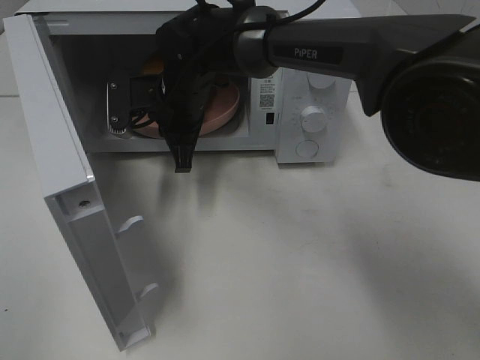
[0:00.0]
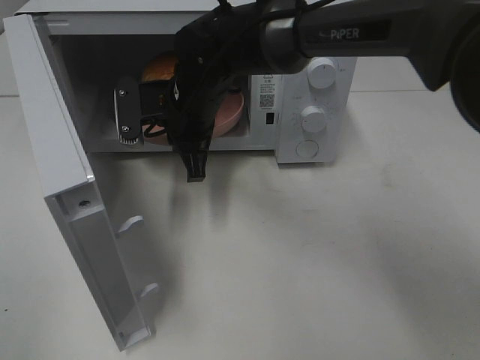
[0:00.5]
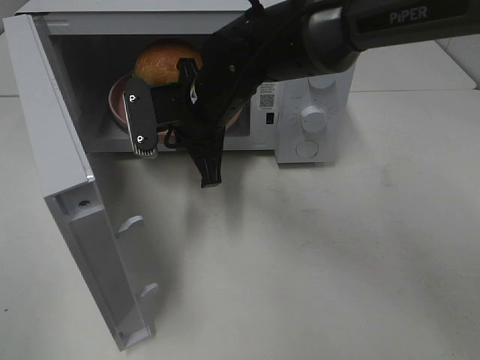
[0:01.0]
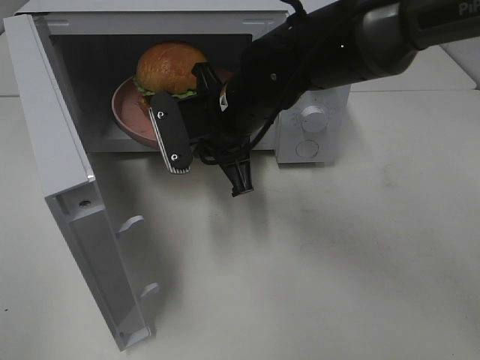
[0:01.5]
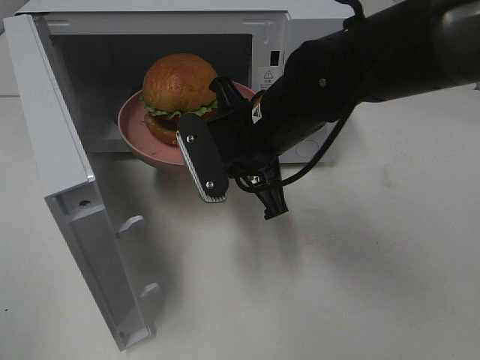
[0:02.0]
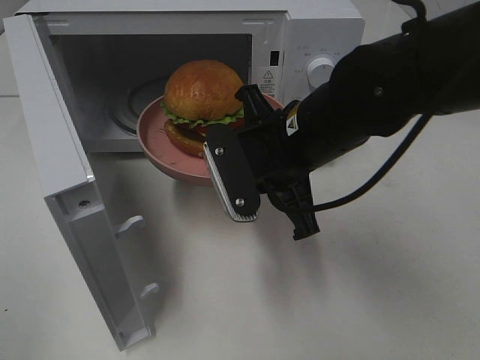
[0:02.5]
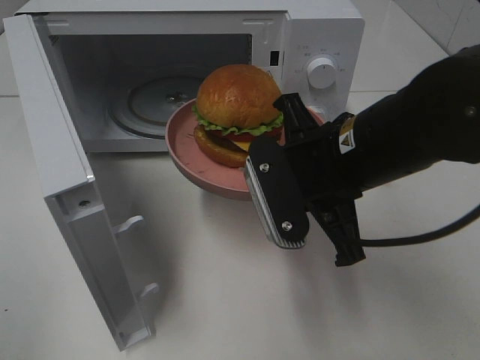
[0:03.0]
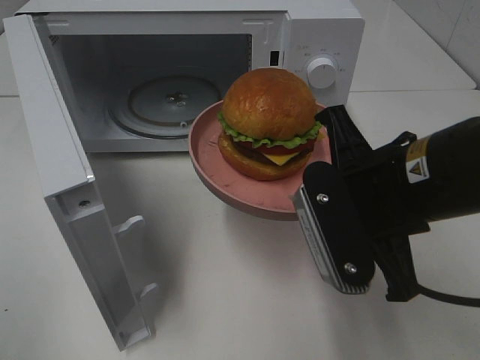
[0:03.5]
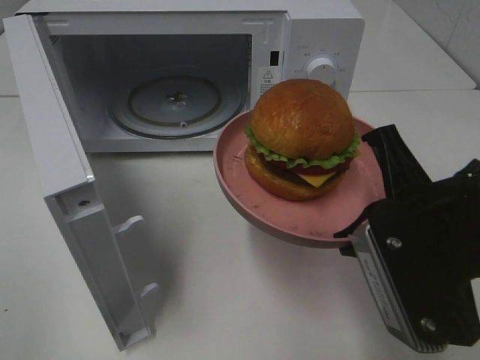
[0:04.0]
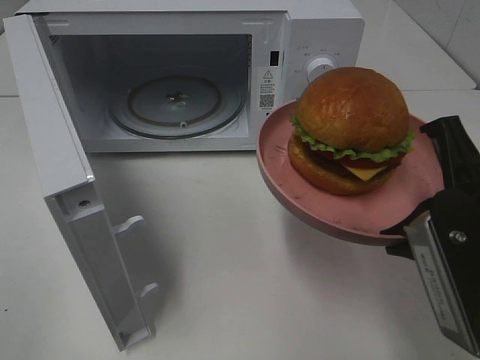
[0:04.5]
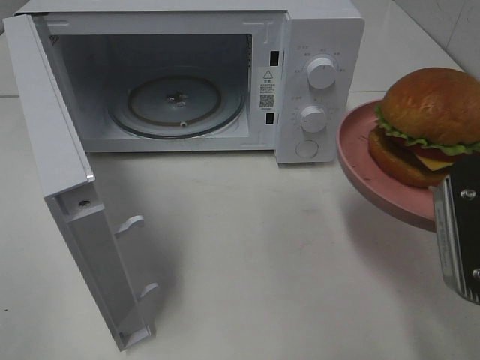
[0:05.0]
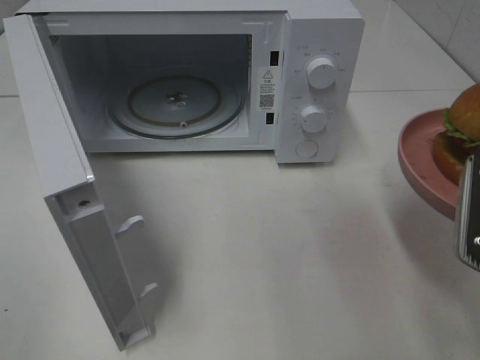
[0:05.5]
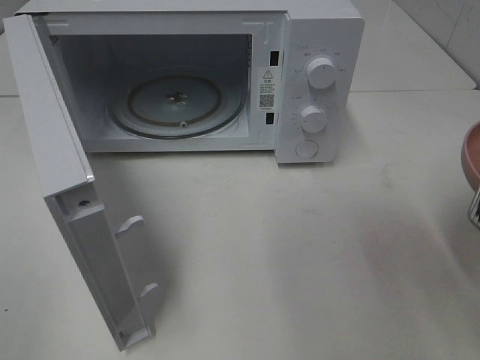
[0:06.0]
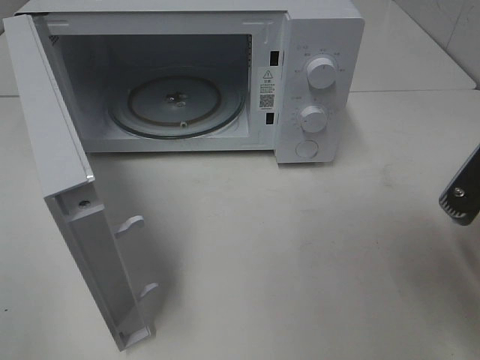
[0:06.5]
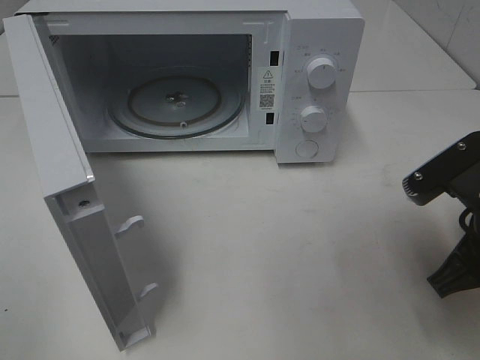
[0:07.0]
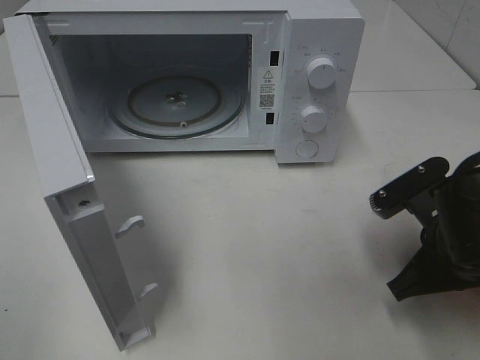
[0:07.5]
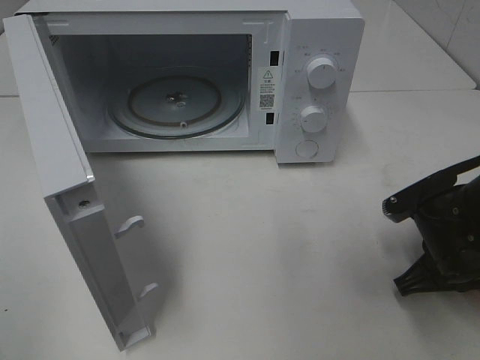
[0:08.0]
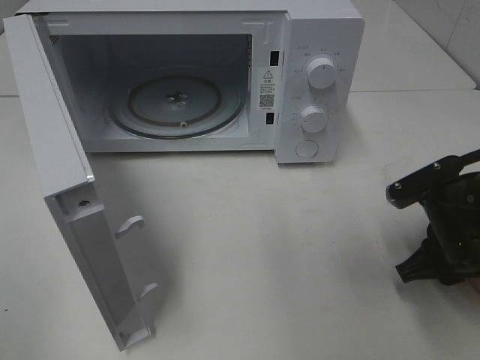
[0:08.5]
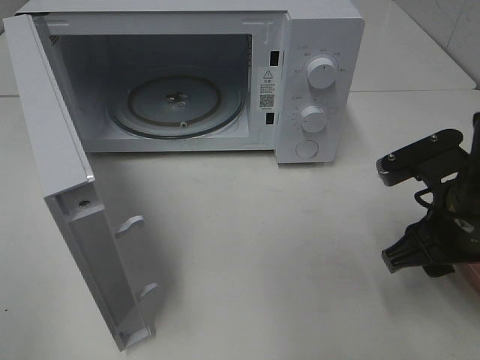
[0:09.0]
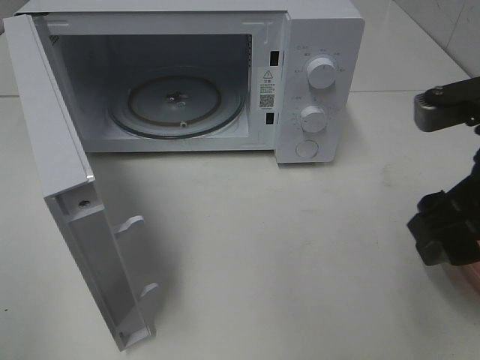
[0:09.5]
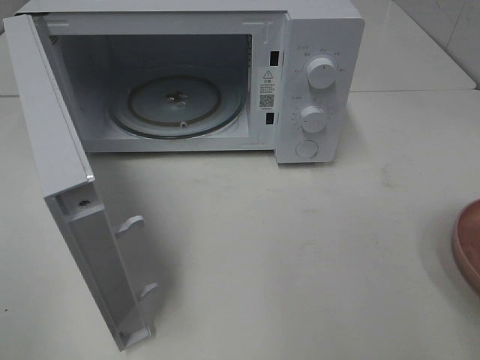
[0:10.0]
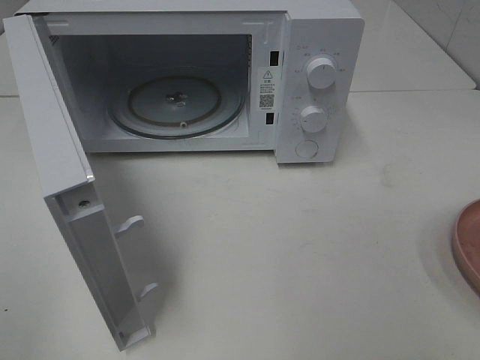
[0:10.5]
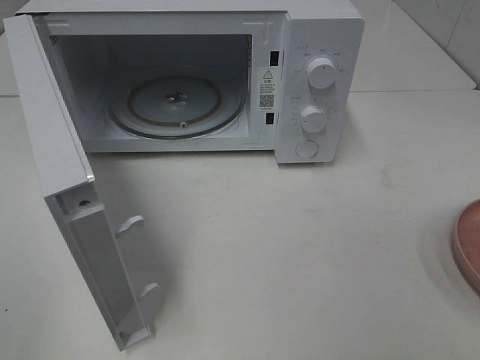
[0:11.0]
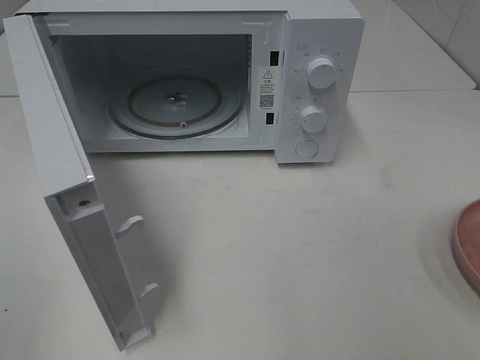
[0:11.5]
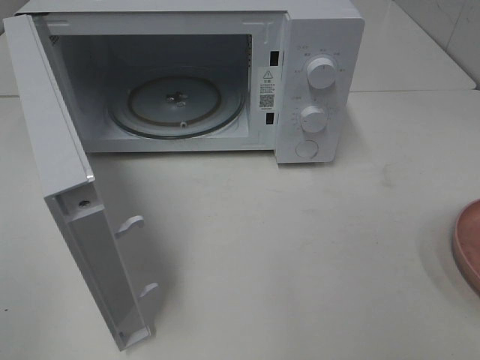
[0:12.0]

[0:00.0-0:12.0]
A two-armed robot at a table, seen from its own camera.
Task of the whole recording: Heat the burger.
Step, 0:00.0 to 0:08.5: Right hand: place the plate on the table.
0:00.0 to 0:02.0: The right gripper heads backward and to the right, covering about 15 cm.
0:02.0 to 0:04.0: The right gripper travels backward and to the right by roughly 20 cm.
0:04.0 to 0:06.0: The right gripper heads to the right, covering about 10 cm.
0:06.0 to 0:08.0: The right gripper heads downward and forward, covering approximately 15 cm.
0:08.0 to 0:10.0: The right gripper travels upward and backward by roughly 20 cm, and opens.

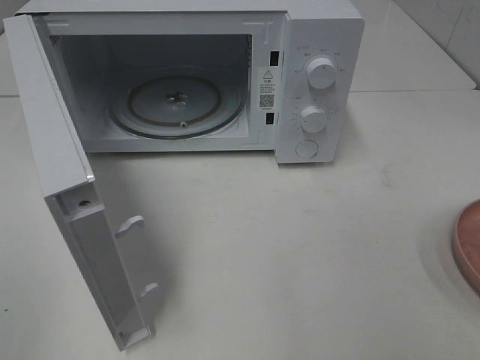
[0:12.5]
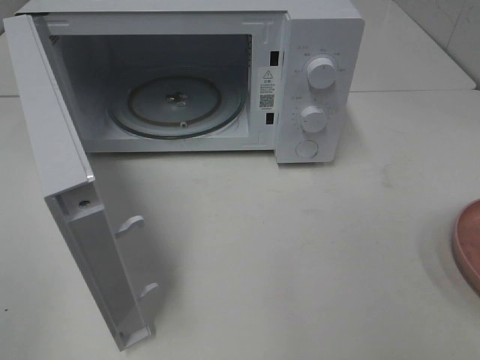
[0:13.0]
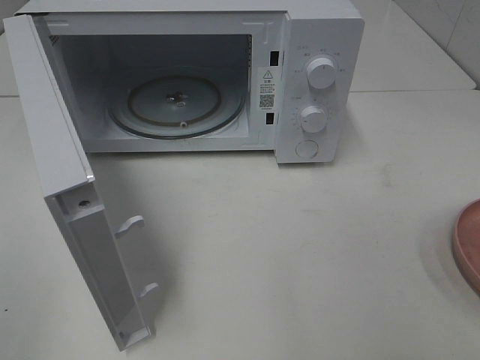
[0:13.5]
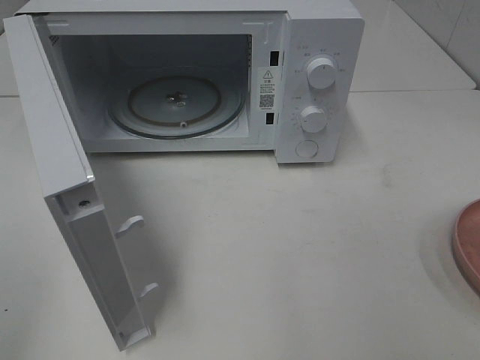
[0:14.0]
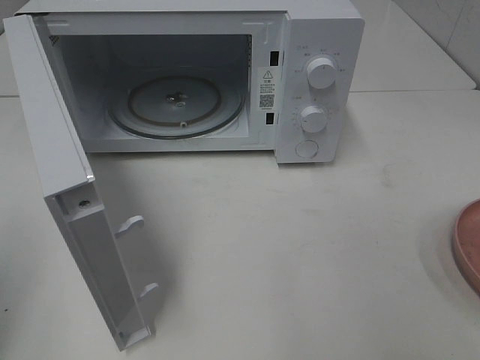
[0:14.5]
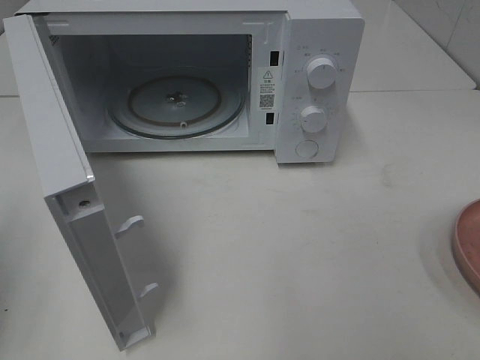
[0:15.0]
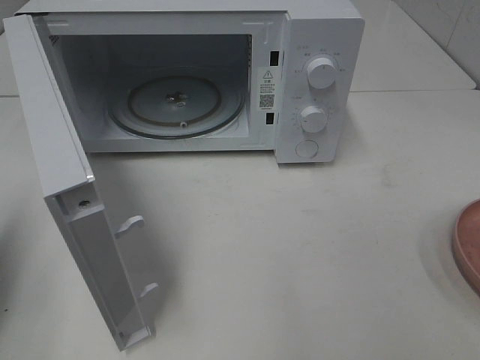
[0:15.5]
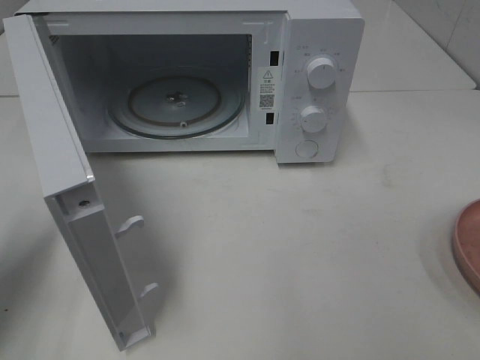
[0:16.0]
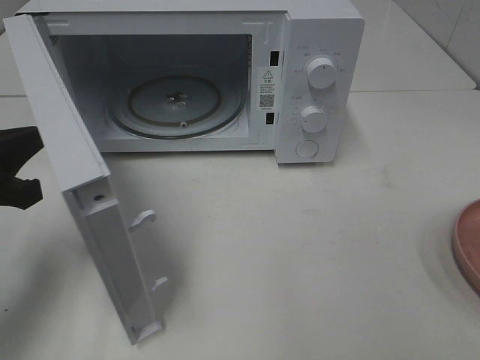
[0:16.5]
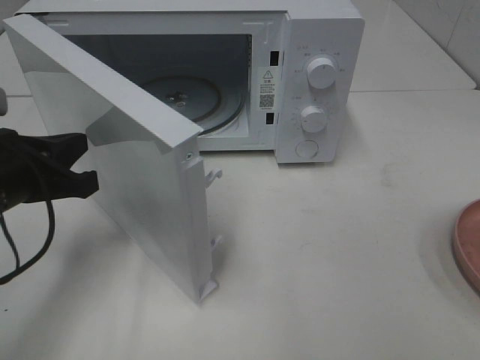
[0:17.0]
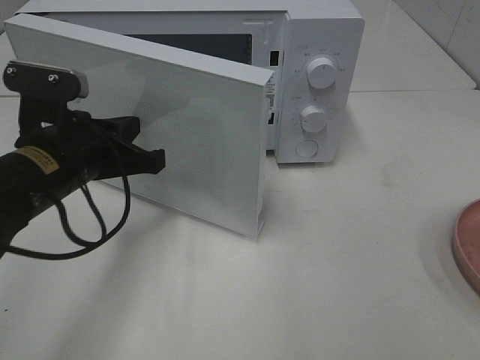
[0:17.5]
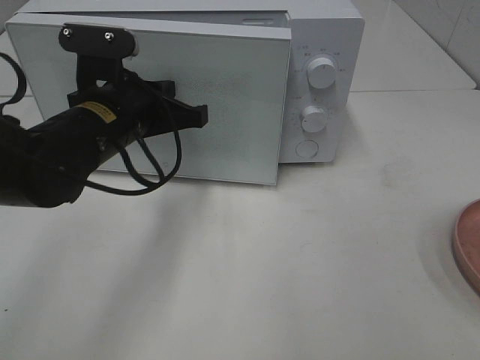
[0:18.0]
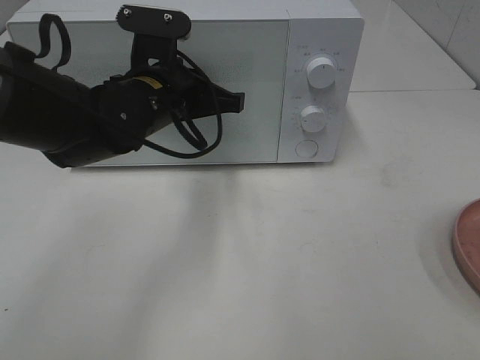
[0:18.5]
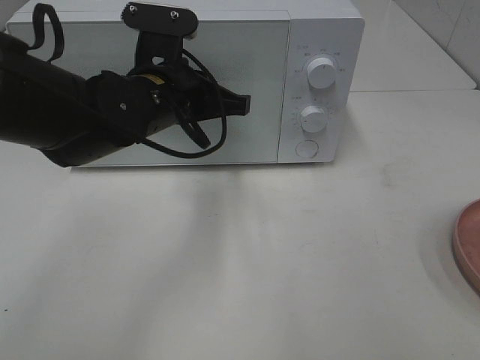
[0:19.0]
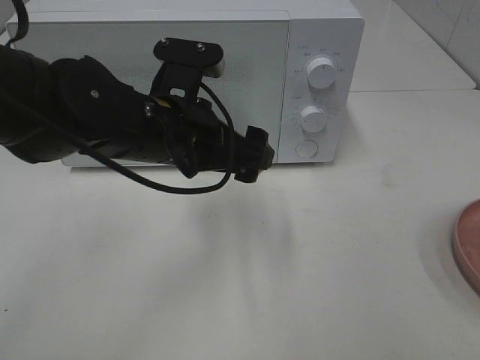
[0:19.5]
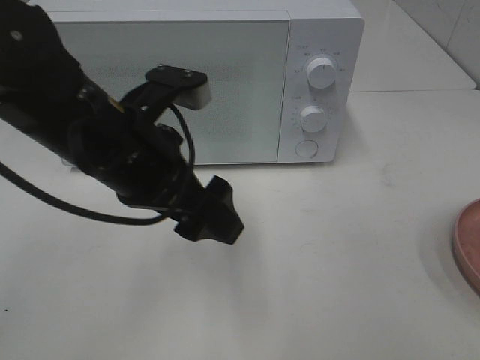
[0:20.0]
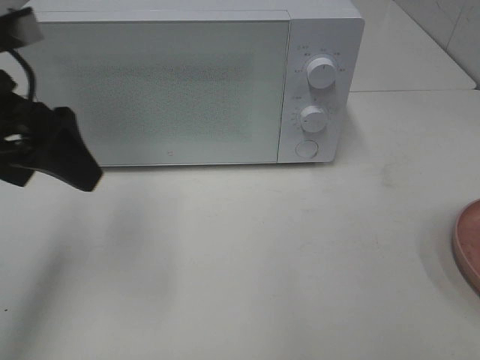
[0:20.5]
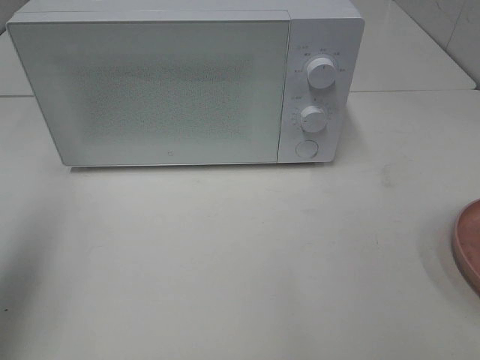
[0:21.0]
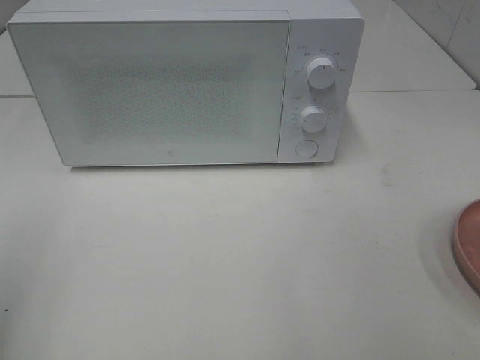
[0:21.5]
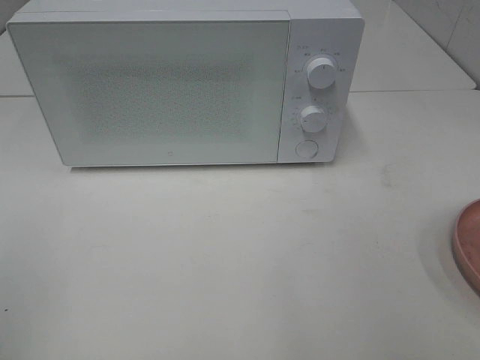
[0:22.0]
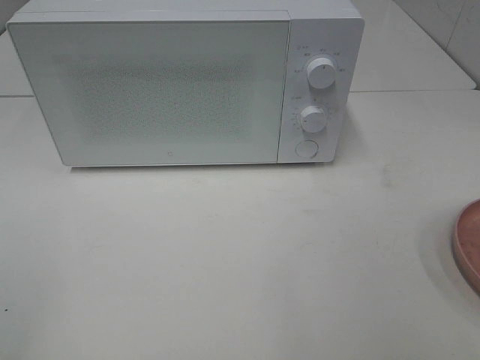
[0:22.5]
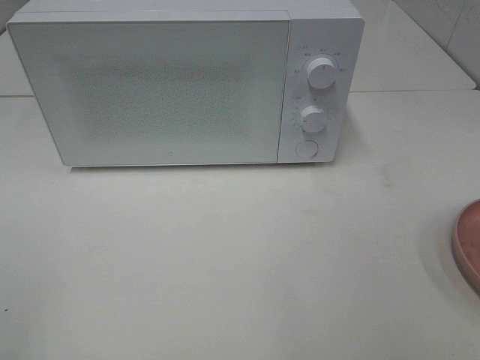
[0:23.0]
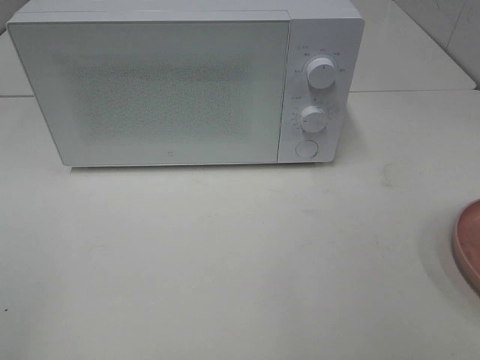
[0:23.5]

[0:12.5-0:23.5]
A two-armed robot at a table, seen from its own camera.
Task of the whole recording: Heat the burger.
Step, 0:12.5 to 0:19.0: Left hand: close the microwave door.
0:14.5 to 0:16.0: The left gripper travels forward and downward by roughly 15 cm.
0:16.0 to 0:18.0: The left gripper shifts approximately 20 cm to the right and forward.
0:18.0 to 0:20.0: The left gripper travels backward by about 5 cm, and opens its fingers.
0:20.0 to 0:21.5: The left gripper is displaced to the left and backward by approximately 25 cm.

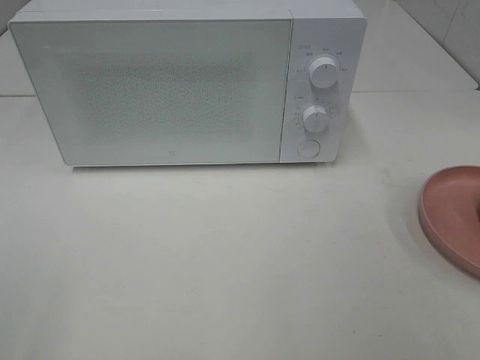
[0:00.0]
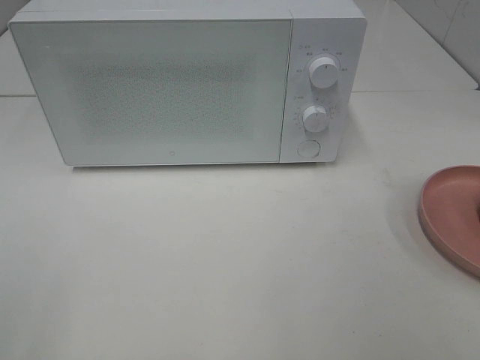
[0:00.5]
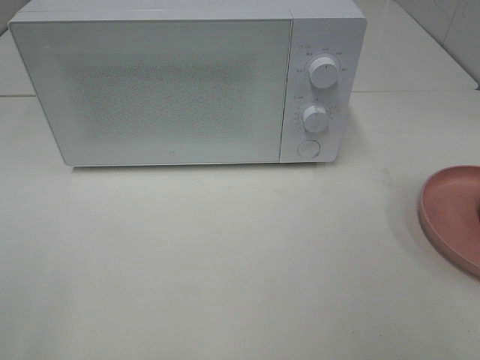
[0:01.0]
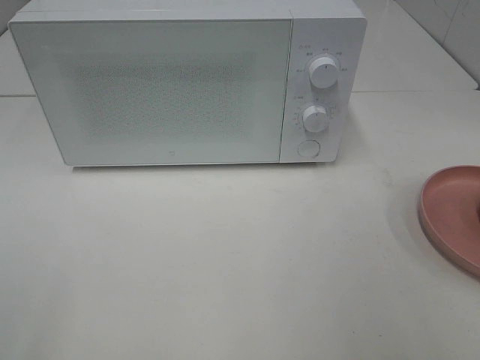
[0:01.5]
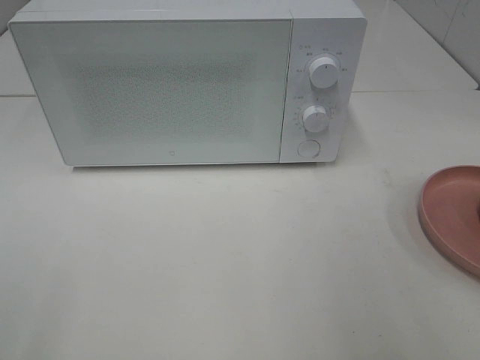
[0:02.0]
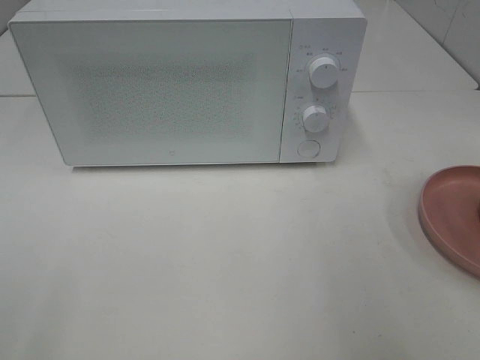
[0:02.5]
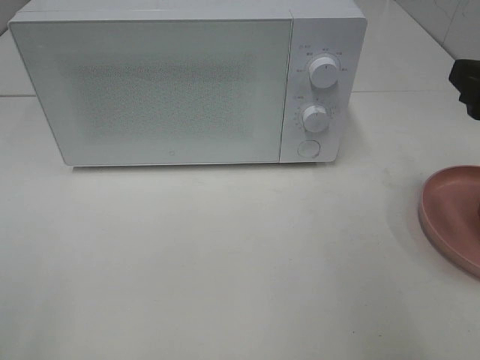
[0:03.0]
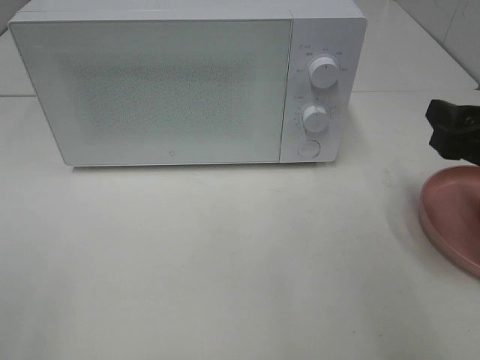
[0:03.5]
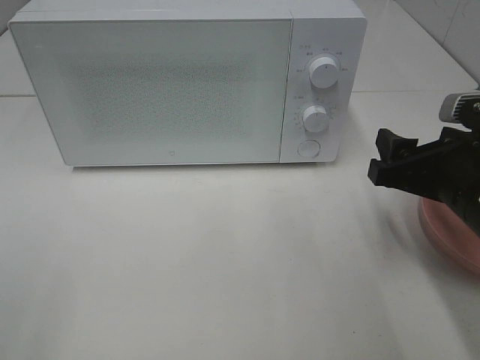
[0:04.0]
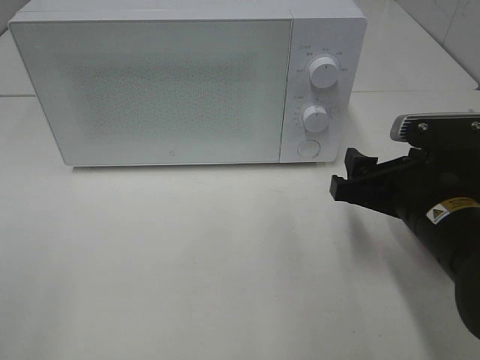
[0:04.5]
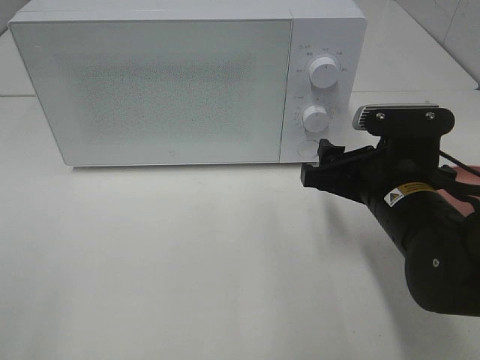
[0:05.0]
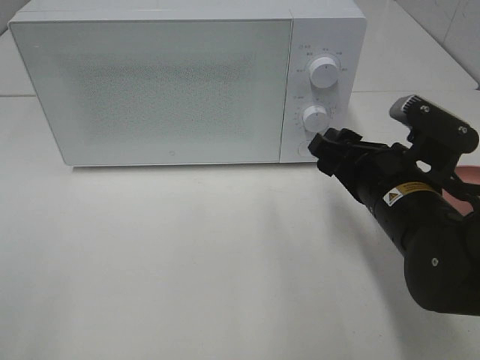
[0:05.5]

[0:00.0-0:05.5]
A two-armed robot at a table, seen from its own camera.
Task of the whole recording: Heat the burger.
0:02.0 to 0:03.5: The right gripper shifts roughly 15 cm downward and forward.
0:03.5 to 0:05.5: The right gripper is displaced to the left and downward by approximately 10 cm.
